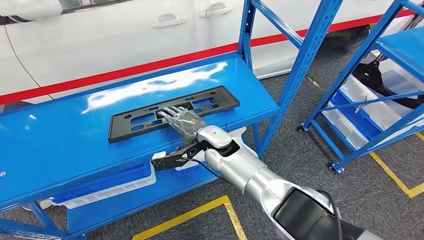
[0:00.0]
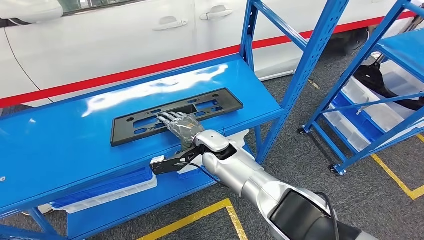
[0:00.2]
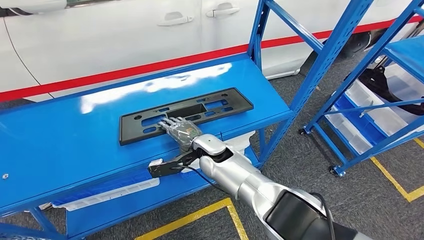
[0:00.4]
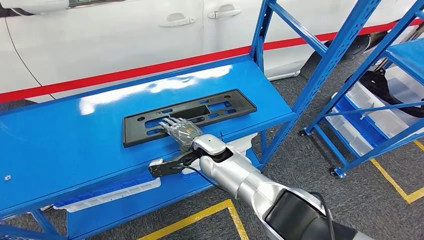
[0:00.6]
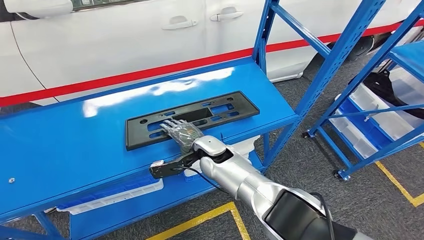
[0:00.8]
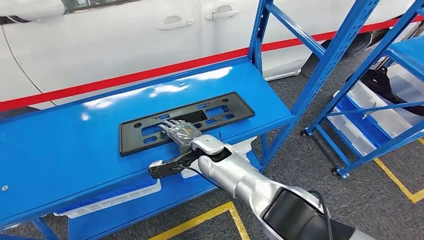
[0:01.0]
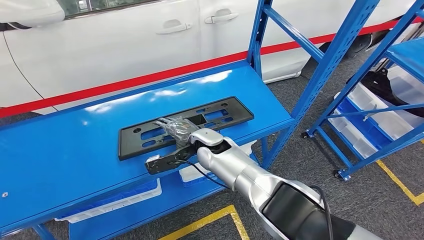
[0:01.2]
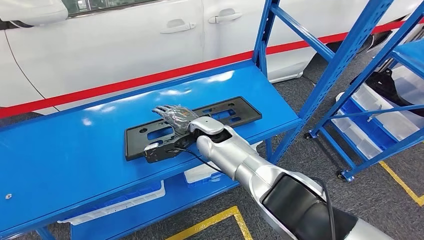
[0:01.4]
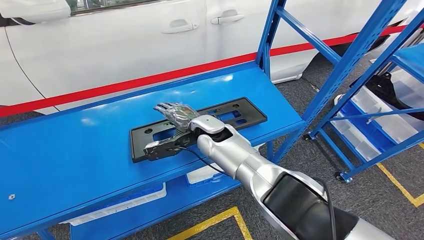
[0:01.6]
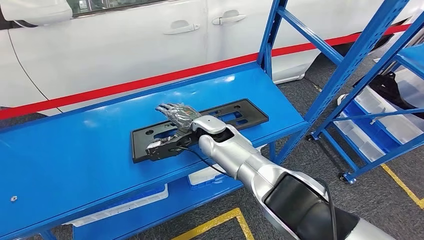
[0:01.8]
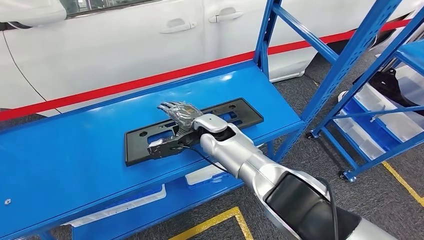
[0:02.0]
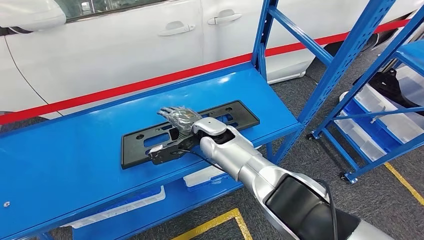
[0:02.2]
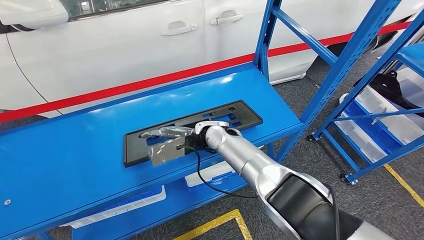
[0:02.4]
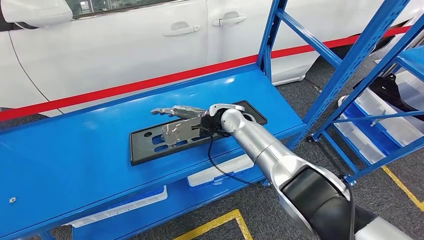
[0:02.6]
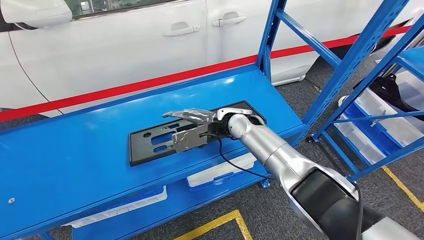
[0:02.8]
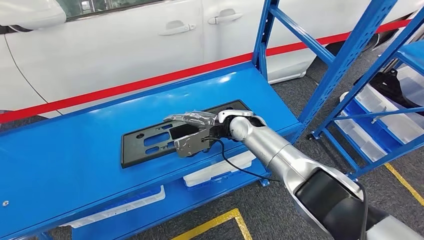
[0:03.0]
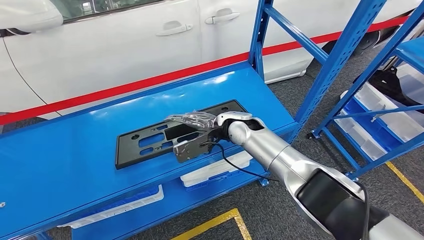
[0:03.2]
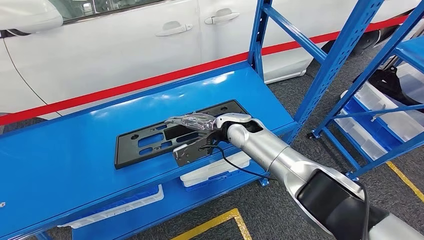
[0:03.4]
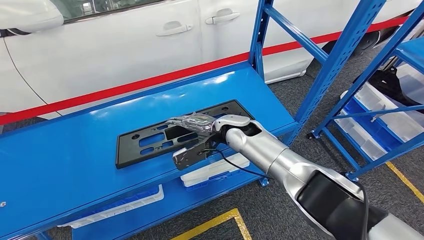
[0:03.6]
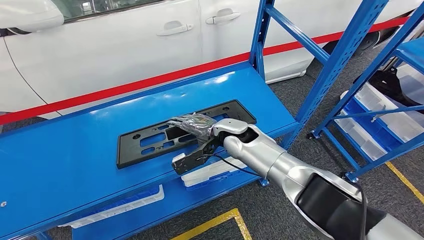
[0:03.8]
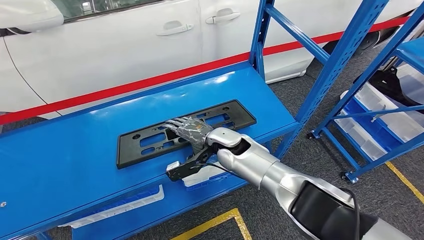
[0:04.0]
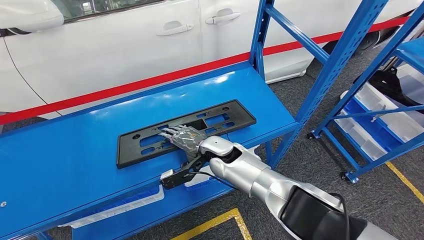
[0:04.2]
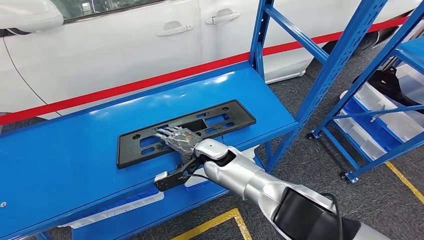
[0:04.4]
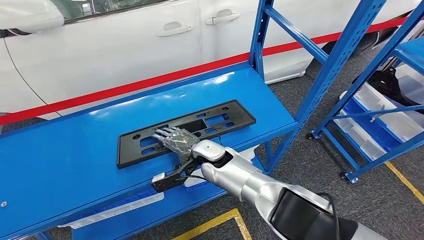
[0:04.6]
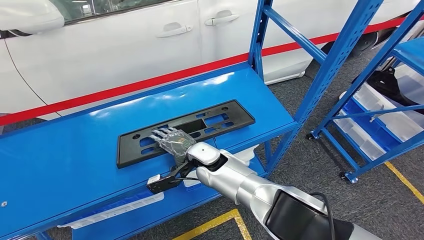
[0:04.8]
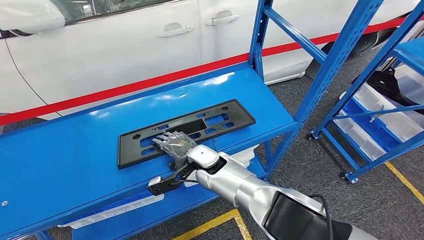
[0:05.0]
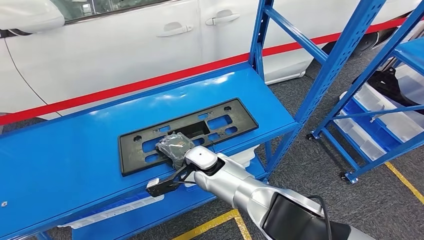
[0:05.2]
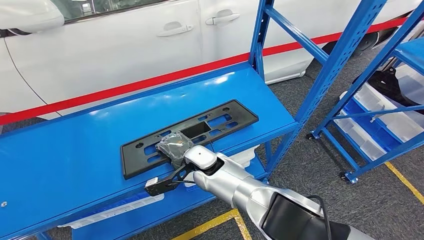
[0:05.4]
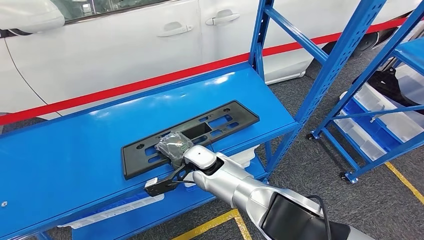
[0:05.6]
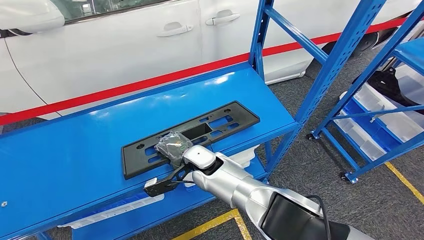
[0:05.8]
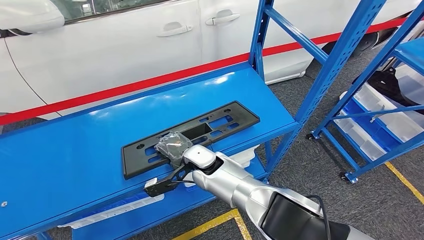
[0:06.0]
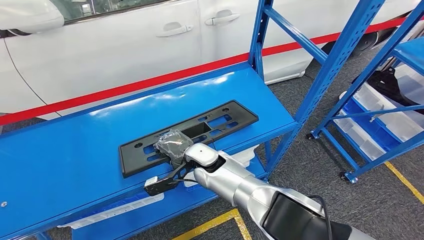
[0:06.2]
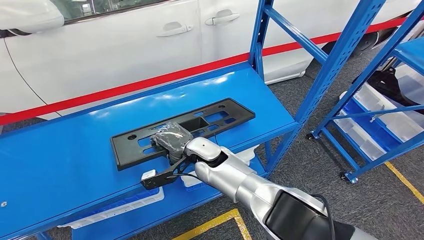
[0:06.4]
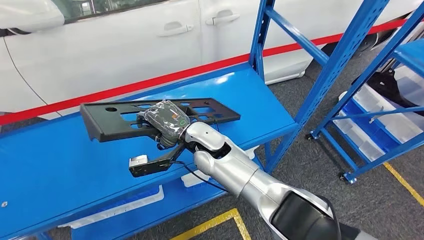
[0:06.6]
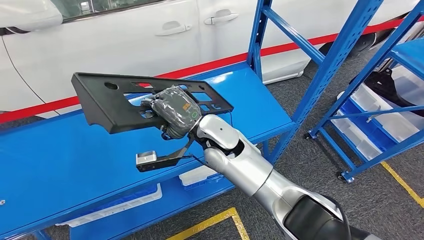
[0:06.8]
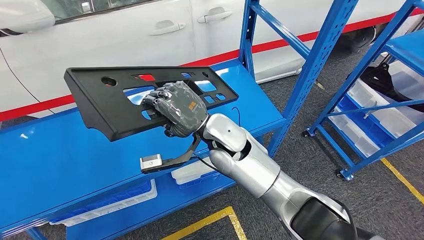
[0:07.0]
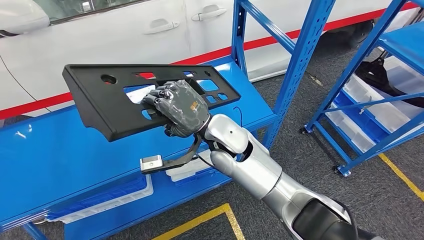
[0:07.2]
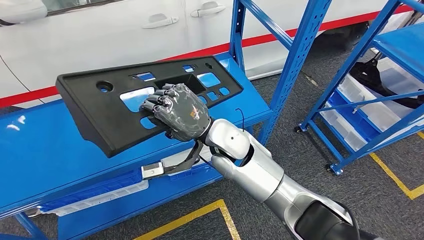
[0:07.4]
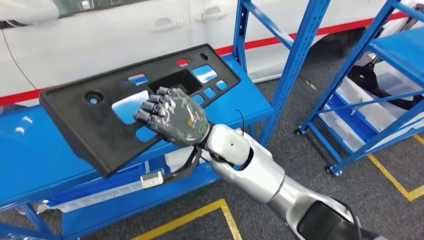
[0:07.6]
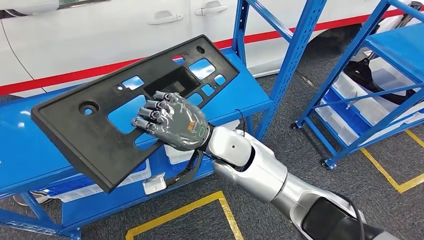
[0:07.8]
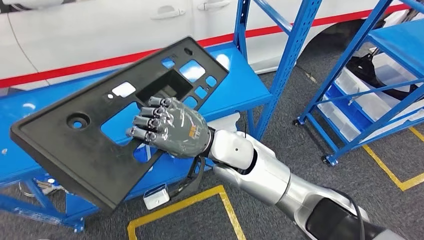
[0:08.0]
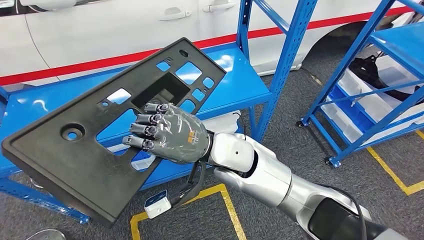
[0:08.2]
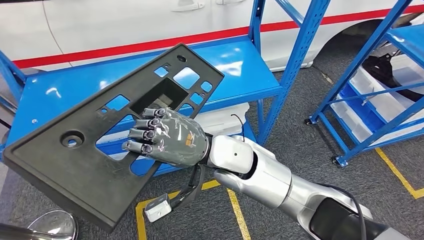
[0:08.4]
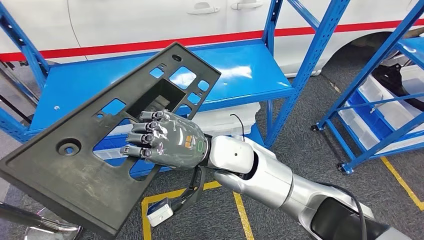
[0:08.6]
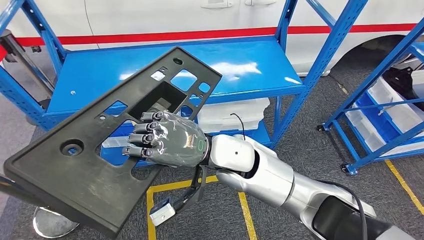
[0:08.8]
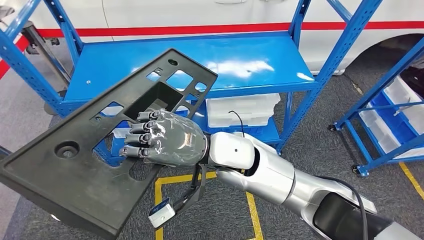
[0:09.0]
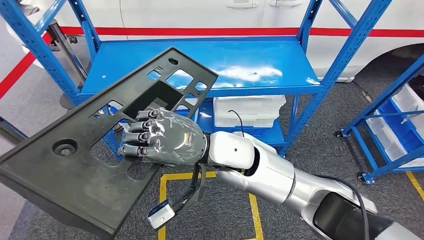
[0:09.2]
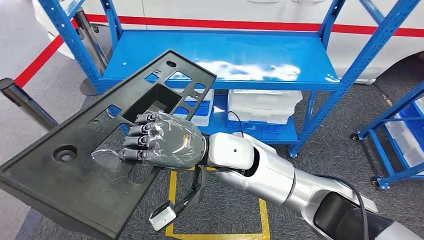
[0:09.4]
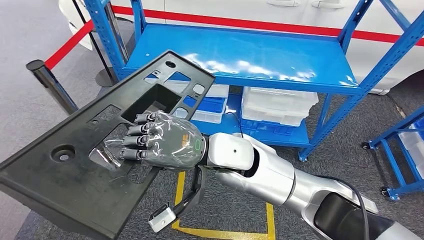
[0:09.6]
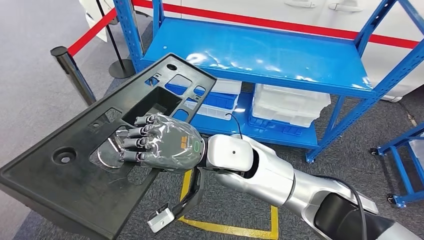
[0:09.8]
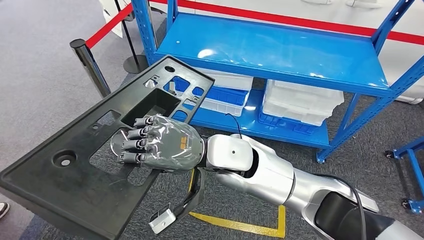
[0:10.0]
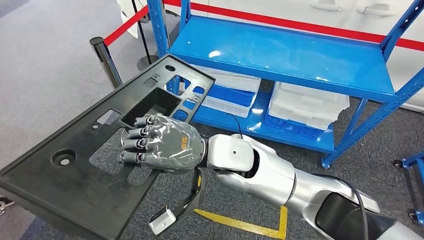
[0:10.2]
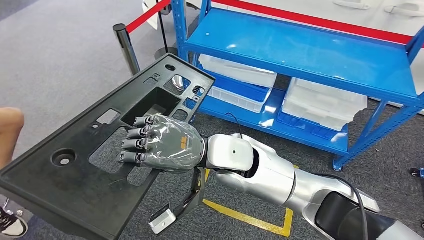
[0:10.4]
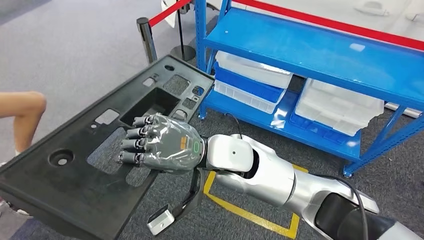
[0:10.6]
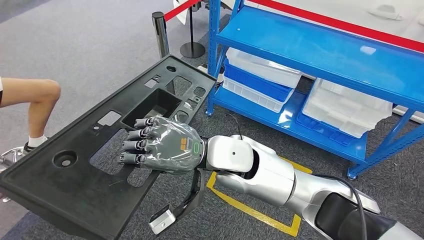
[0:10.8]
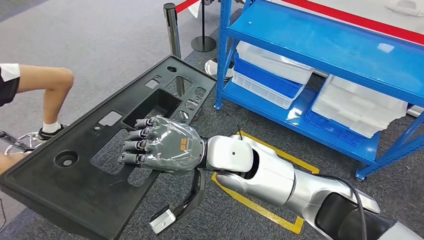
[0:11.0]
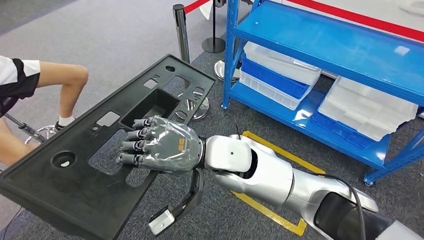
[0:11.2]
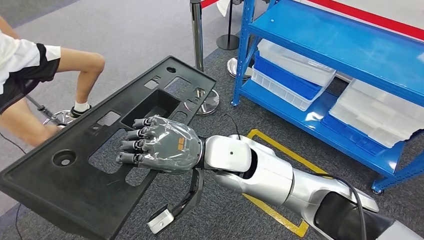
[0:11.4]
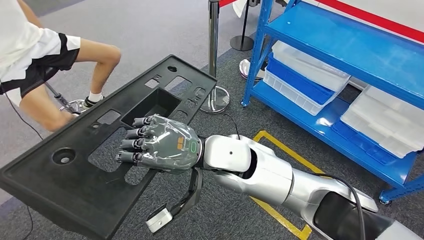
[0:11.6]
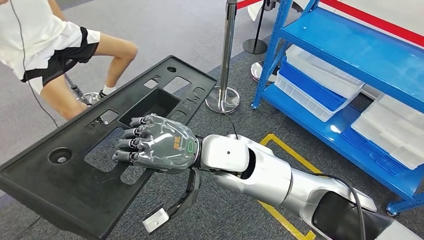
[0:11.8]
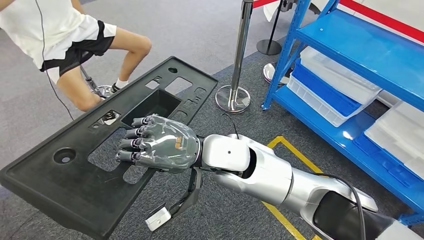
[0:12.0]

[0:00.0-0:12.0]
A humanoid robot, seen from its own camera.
Step, 0:00.0 to 0:07.8: Pick up the large material from the shelf.
0:04.4 to 0:06.0: The hands move only a little.

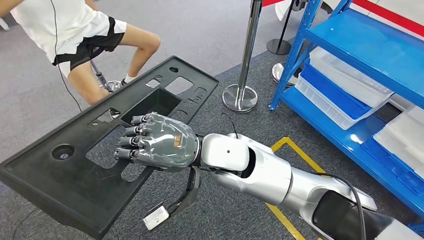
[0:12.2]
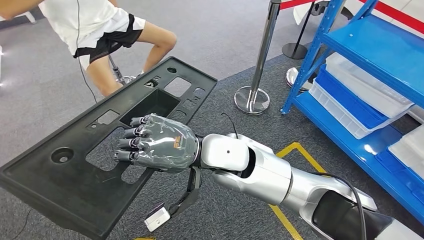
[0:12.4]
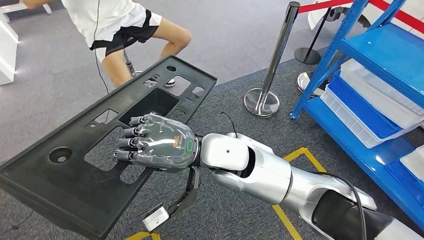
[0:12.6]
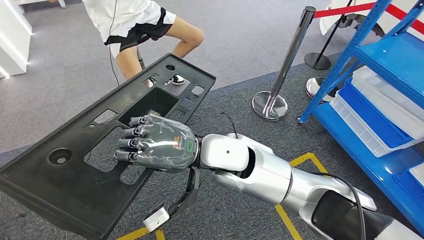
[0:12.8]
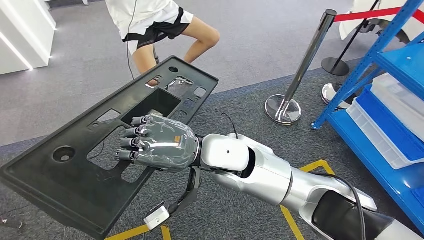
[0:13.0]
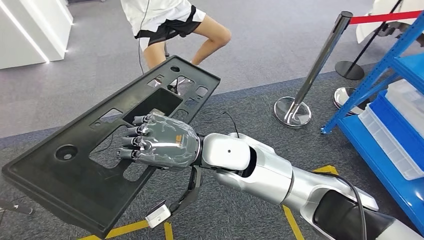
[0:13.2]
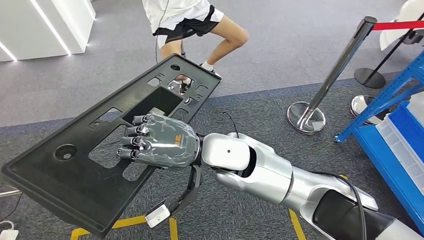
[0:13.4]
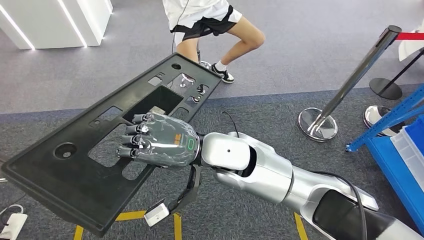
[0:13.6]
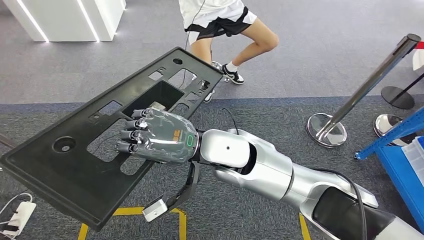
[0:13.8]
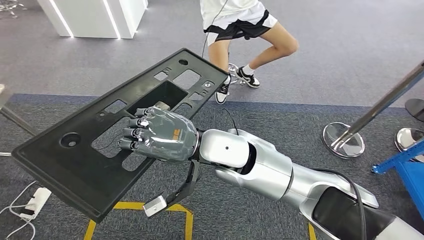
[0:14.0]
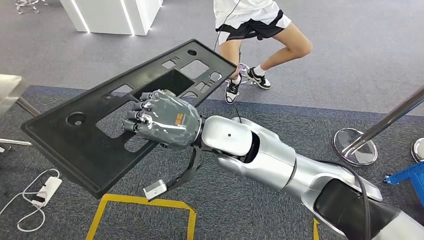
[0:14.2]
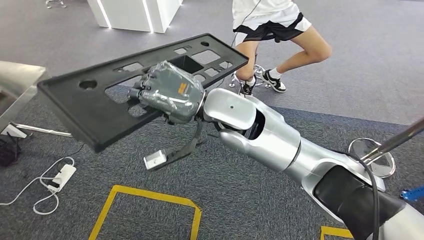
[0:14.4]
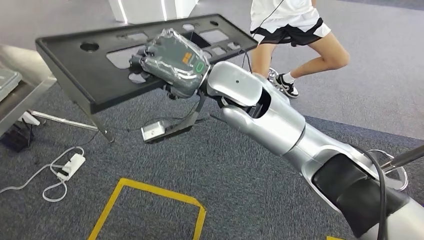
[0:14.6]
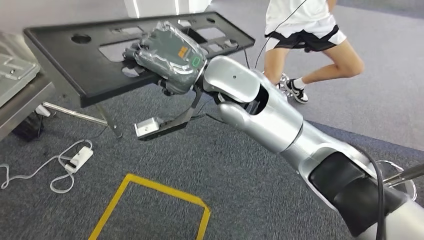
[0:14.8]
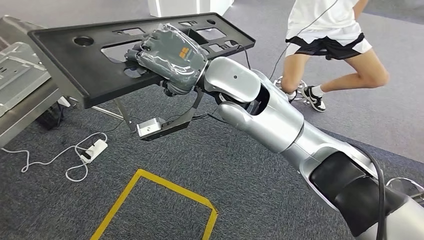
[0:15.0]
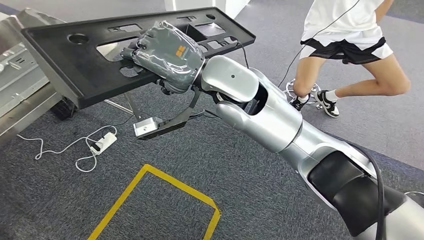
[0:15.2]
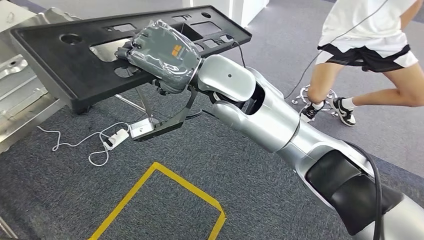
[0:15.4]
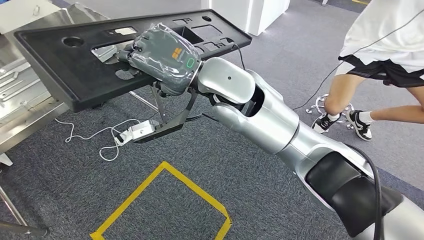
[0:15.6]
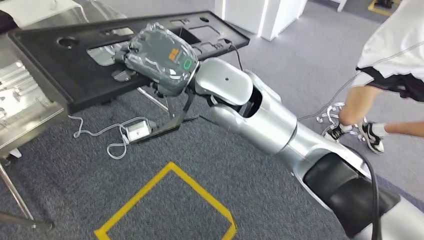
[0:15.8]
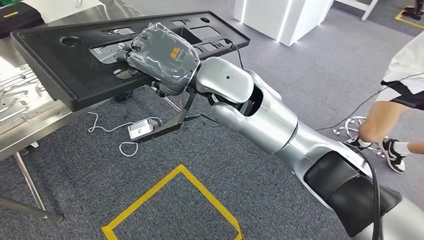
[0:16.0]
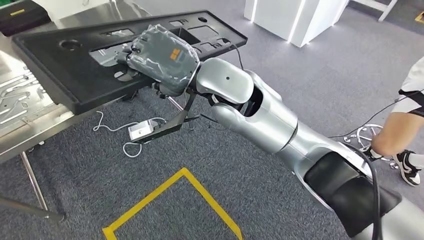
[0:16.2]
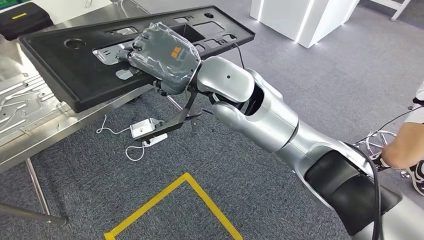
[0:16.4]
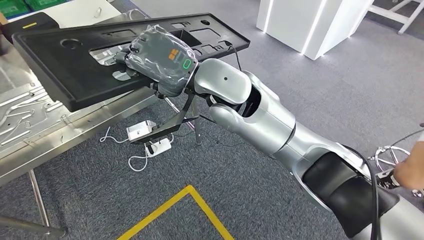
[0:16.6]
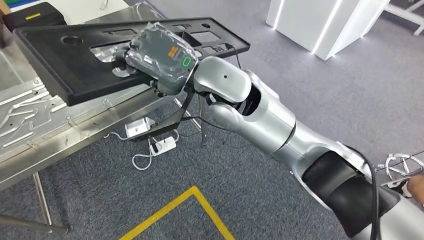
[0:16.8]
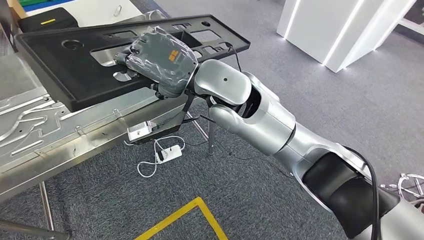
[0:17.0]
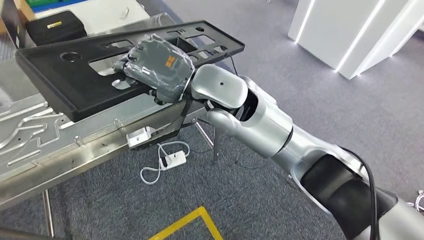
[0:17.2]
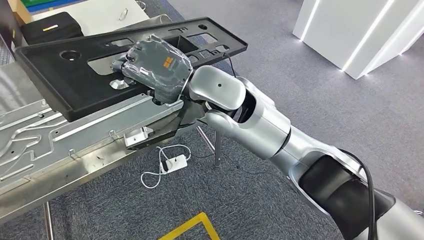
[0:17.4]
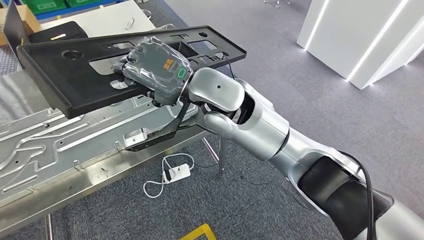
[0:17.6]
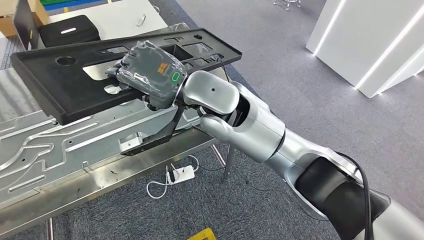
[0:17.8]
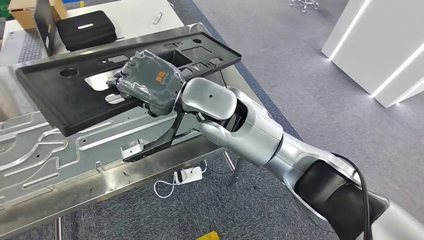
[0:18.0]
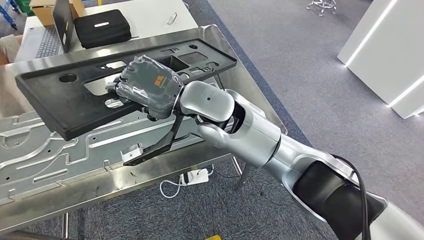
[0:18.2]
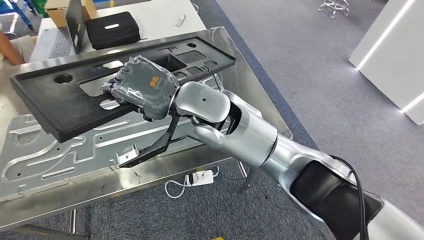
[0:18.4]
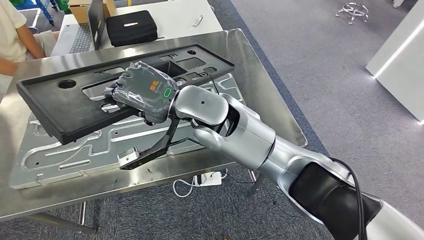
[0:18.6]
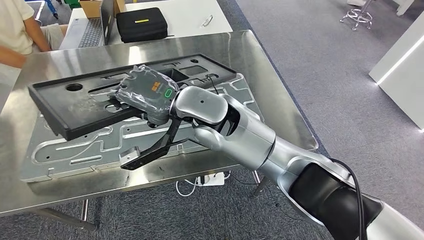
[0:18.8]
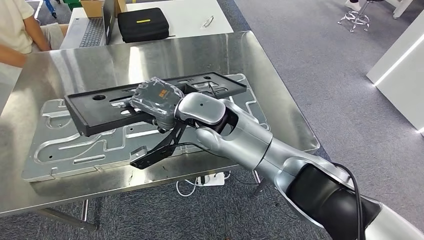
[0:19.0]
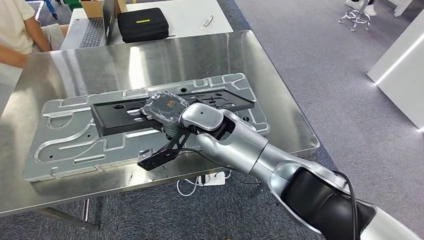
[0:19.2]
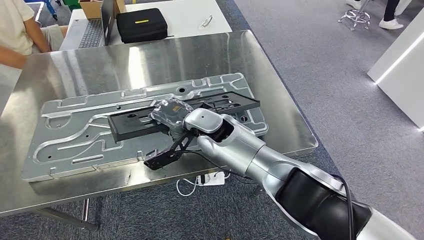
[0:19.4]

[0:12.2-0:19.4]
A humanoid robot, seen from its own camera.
Step, 0:12.2 to 0:19.0: Move the large material to the workbench.
